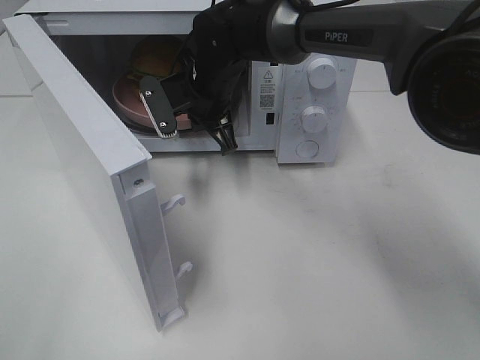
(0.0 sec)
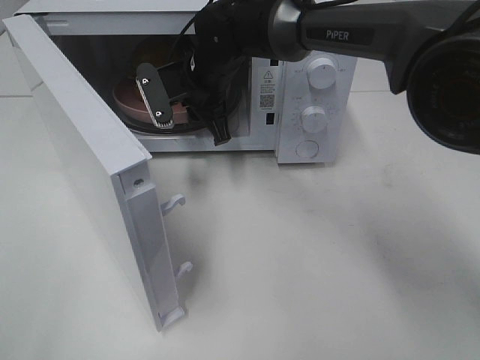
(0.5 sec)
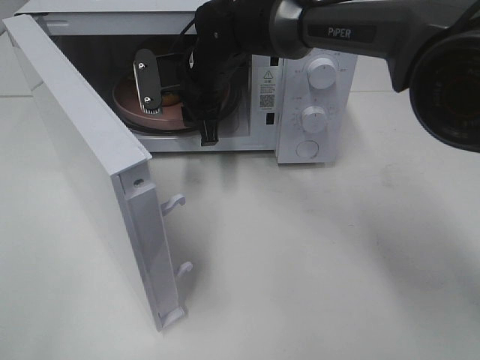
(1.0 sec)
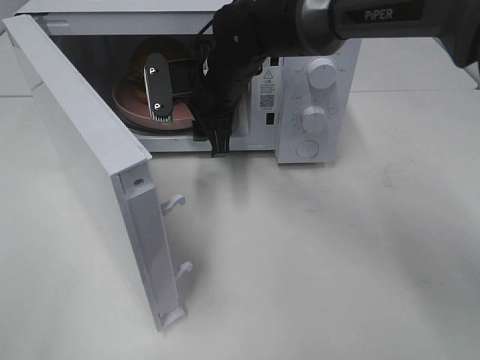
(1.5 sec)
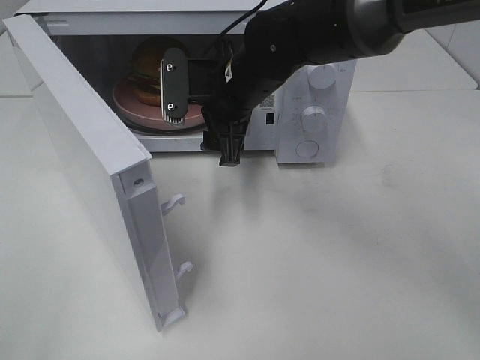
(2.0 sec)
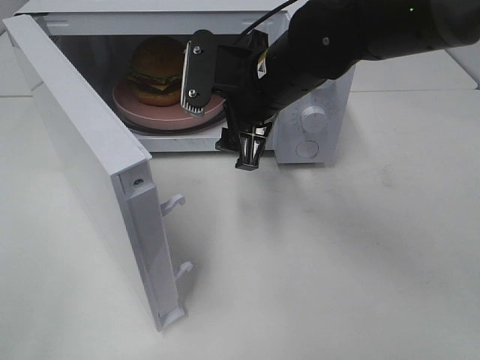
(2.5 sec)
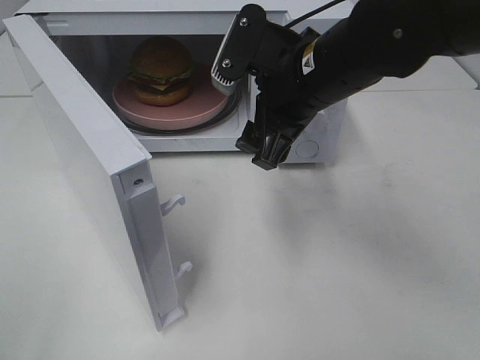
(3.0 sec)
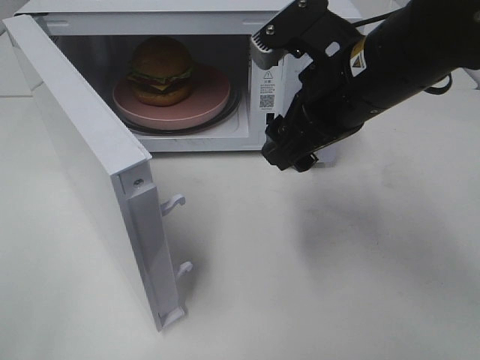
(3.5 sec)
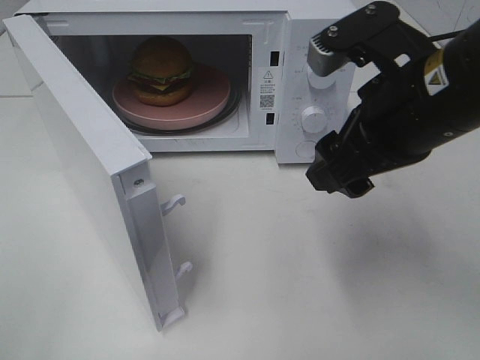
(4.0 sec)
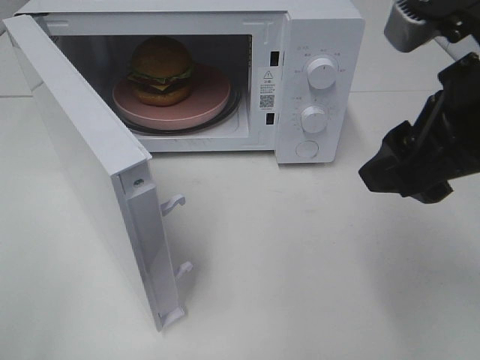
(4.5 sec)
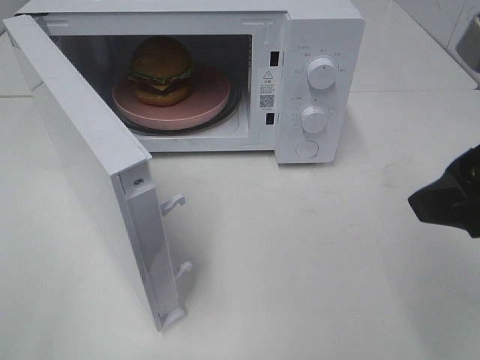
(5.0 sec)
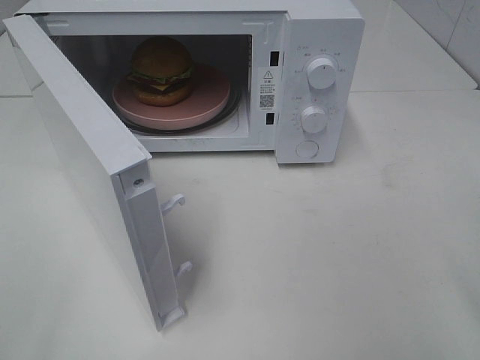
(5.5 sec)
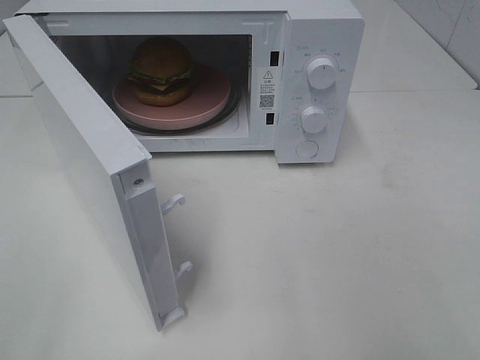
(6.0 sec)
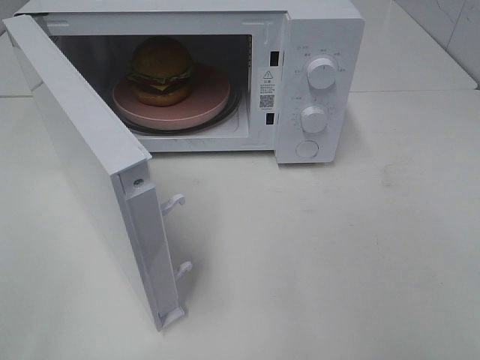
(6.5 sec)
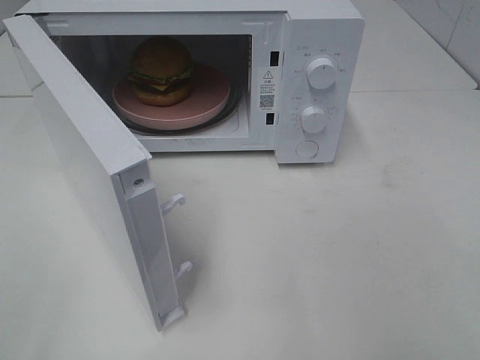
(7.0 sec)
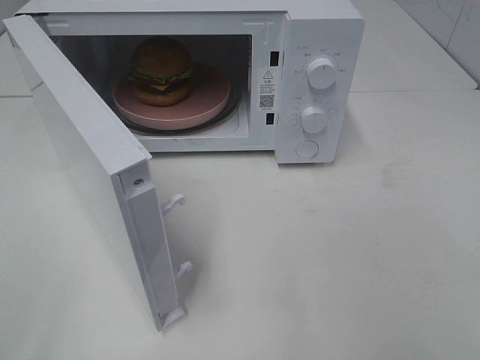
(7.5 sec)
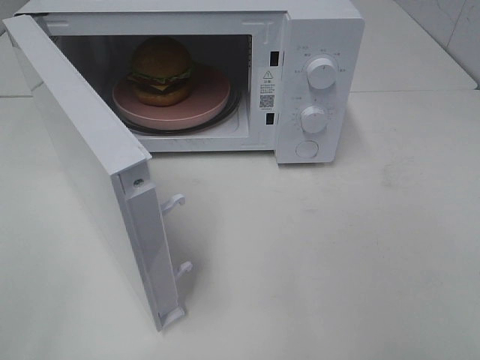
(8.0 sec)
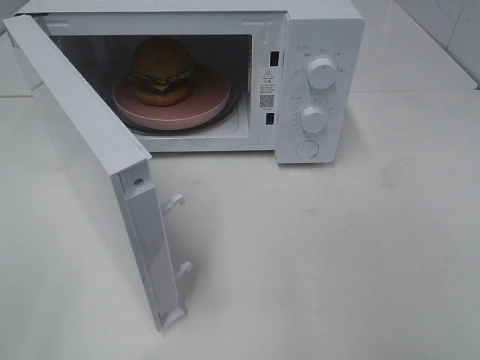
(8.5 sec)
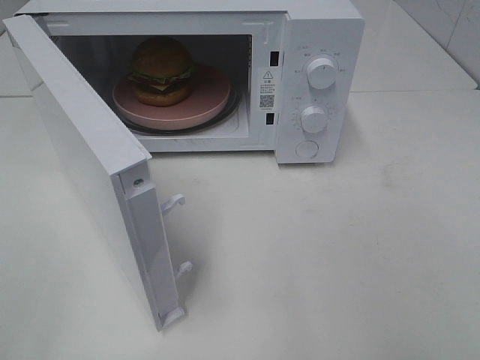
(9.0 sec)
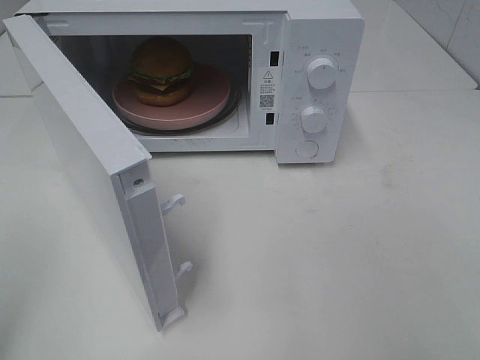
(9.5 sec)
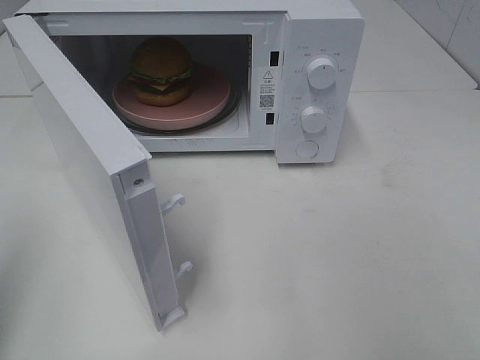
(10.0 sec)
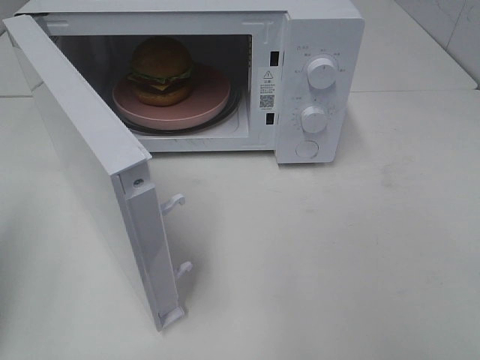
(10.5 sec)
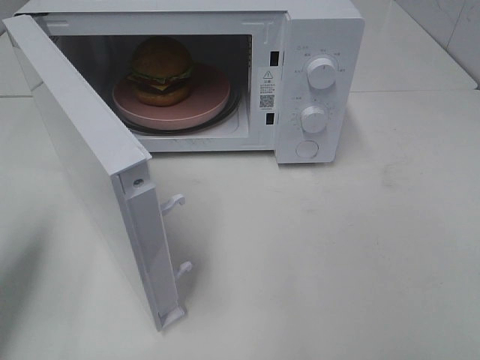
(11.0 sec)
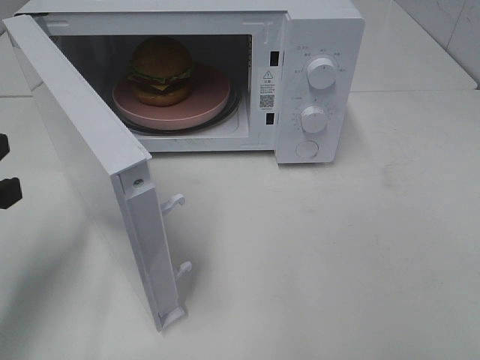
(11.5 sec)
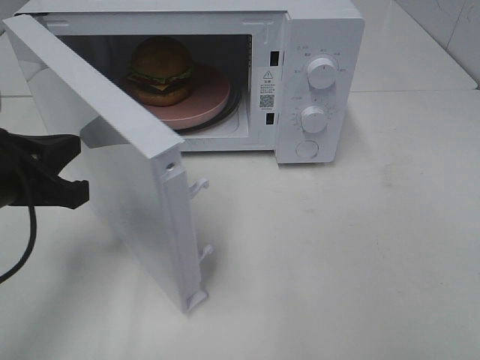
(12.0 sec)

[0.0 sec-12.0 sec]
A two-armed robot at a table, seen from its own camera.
Task of the whole recording: Heat the burger.
0.0 sec to 2.0 sec: The right gripper shifts about 5 cm backward, and opens its fingers.
2.0 sec to 4.0 sec: The right gripper shifts roughly 20 cm backward, to the right and upward.
4.0 sec to 6.0 sec: The right gripper shifts some 20 cm backward and to the right.
10.0 sec to 12.0 sec: The left gripper moves forward, downward and to the right, roughly 20 cm.

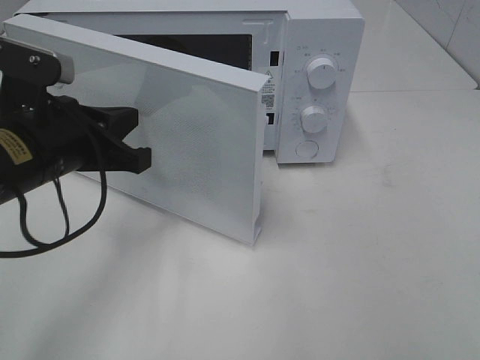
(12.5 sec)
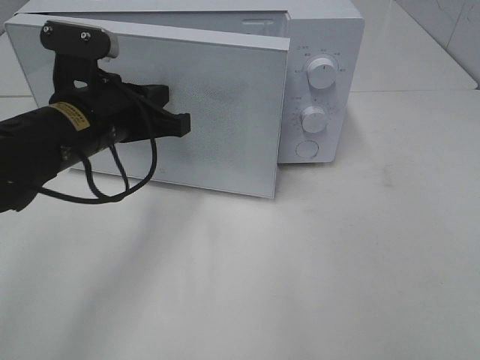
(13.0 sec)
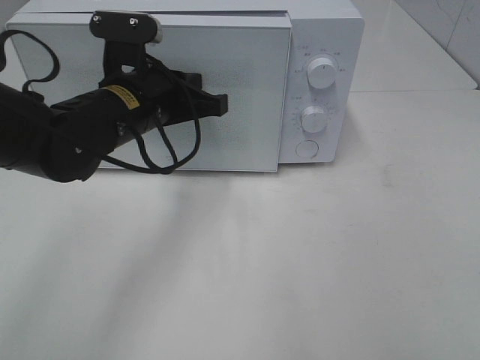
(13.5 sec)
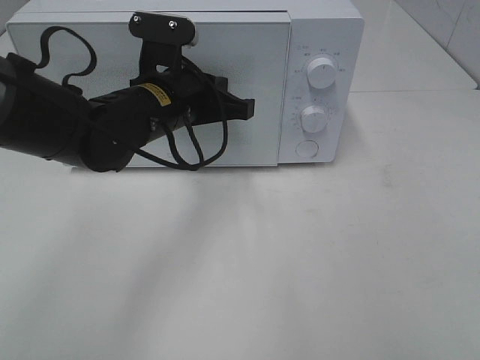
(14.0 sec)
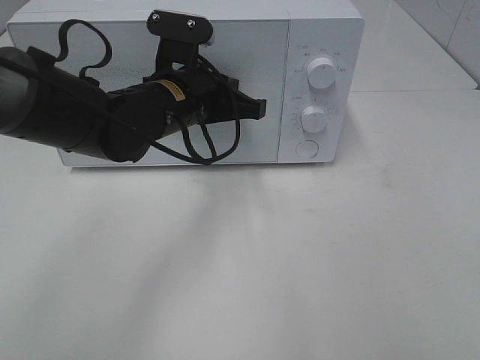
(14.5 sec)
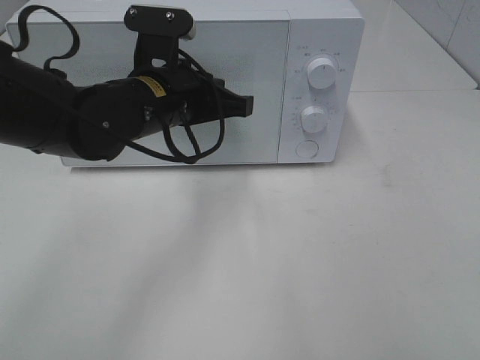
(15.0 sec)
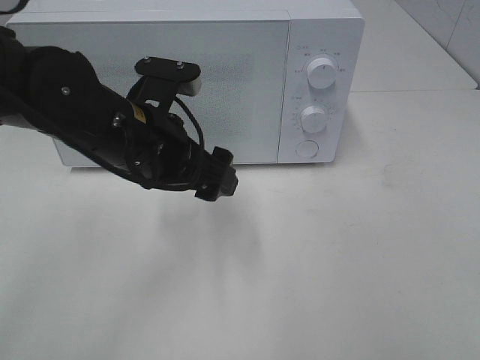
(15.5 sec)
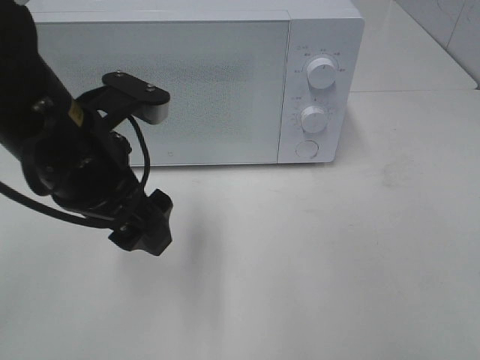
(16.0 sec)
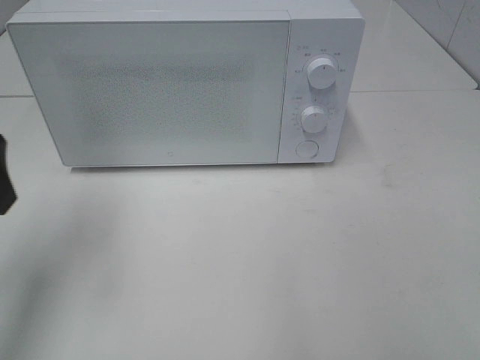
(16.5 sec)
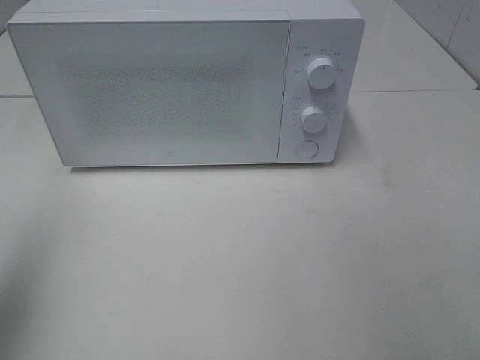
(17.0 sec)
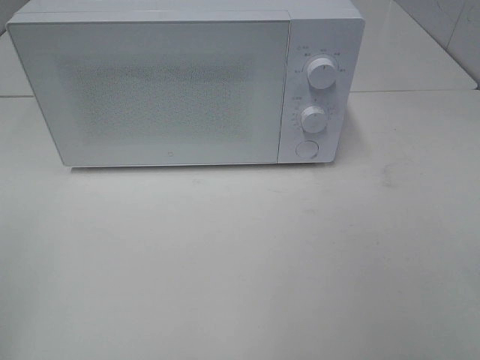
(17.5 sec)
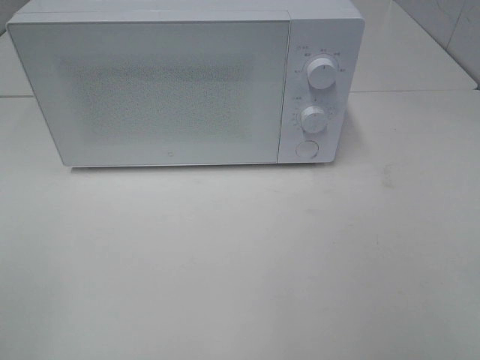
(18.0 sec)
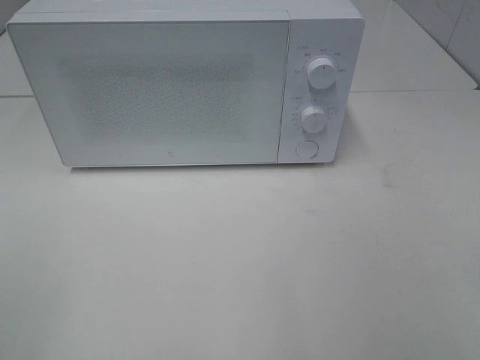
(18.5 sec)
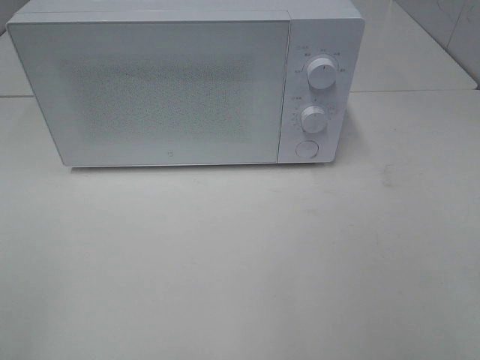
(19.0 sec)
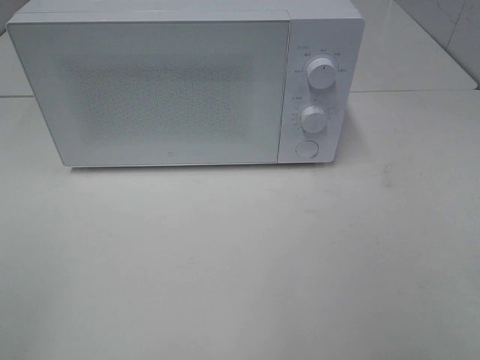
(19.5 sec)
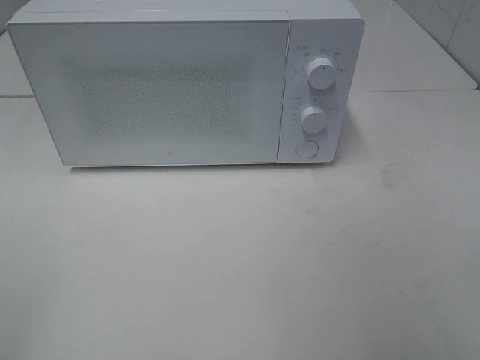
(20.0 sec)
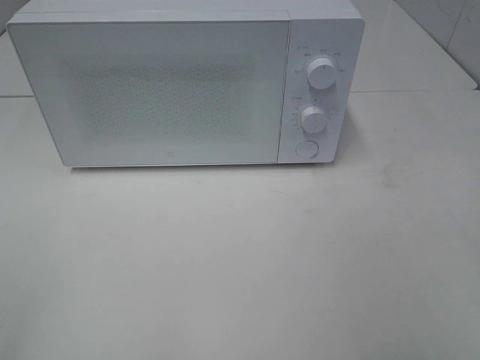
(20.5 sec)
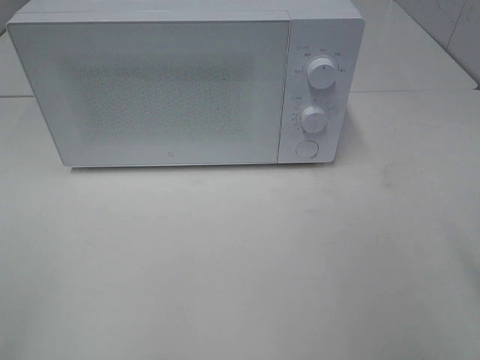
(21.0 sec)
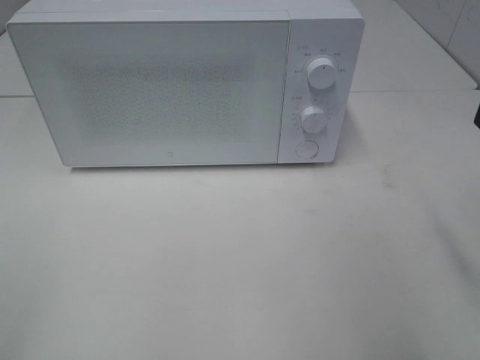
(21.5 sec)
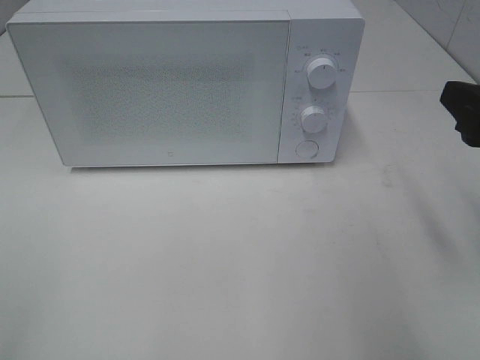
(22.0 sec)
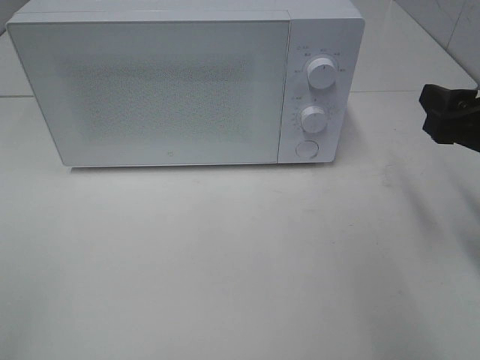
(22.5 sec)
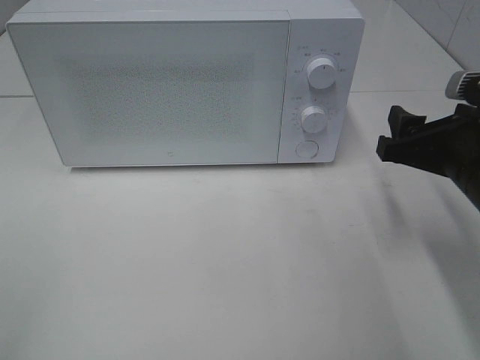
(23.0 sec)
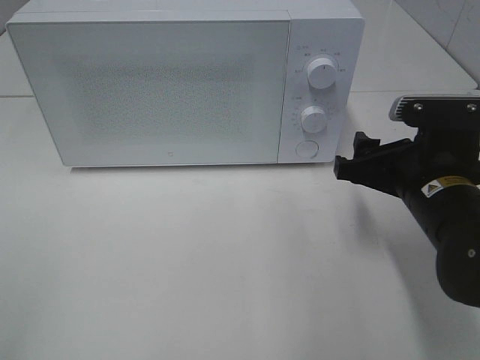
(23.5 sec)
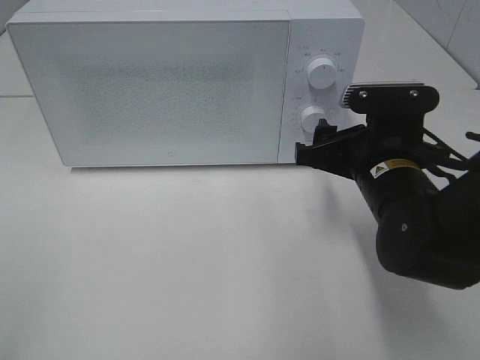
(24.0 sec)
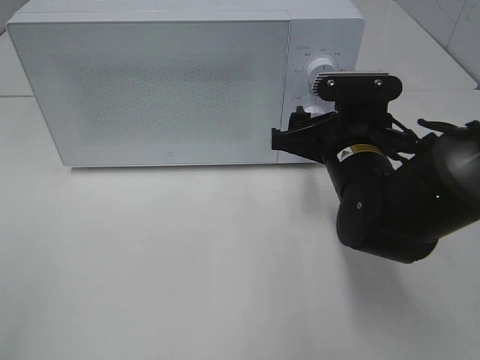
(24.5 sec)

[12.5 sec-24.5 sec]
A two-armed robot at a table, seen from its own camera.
Task of the whole recording: Heat the burger.
Step, 12.5 sec to 15.0 sec: Left hand: close the microwave door.
12.5 sec to 14.5 sec: The left gripper moves to the right and forward, approximately 15 cm.
14.5 sec to 16.5 sec: The left gripper shifts roughly 25 cm to the left, backward and upward, and opens its fingers.
16.5 sec to 18.5 sec: The left gripper heads backward, covering about 25 cm.
20.5 sec to 22.5 sec: The right gripper travels forward and downward by approximately 20 cm.
22.5 sec to 24.5 sec: The right gripper travels to the left, downward and forward by some 15 cm.

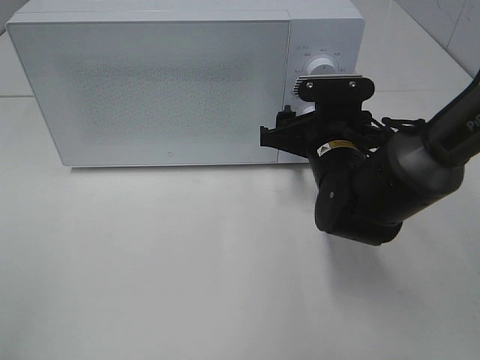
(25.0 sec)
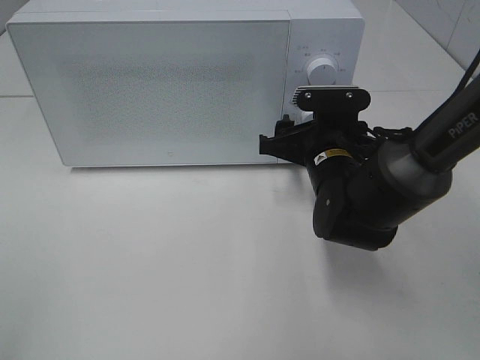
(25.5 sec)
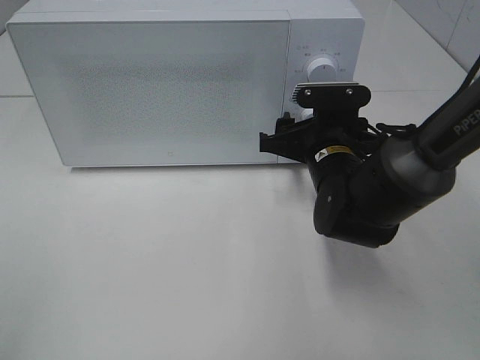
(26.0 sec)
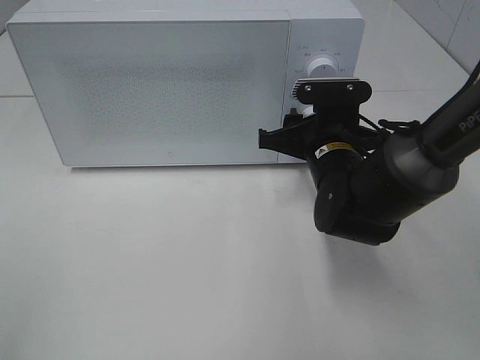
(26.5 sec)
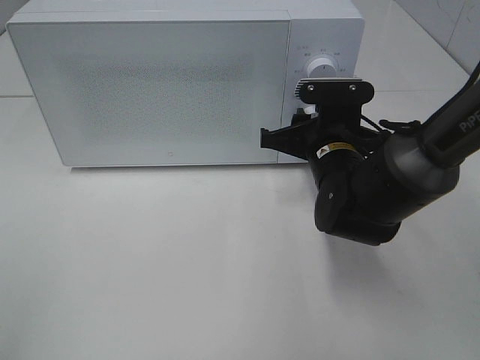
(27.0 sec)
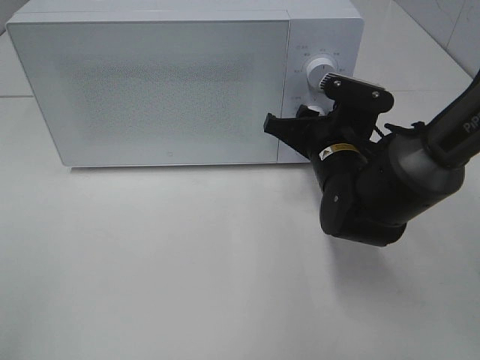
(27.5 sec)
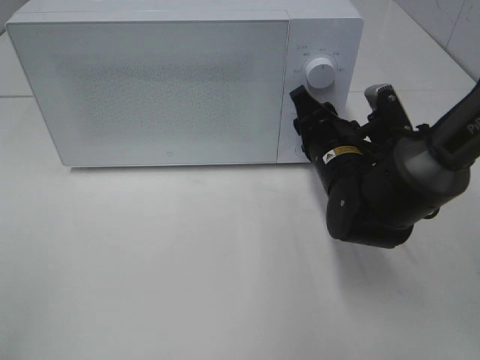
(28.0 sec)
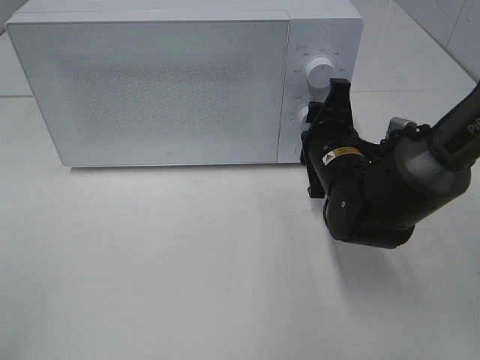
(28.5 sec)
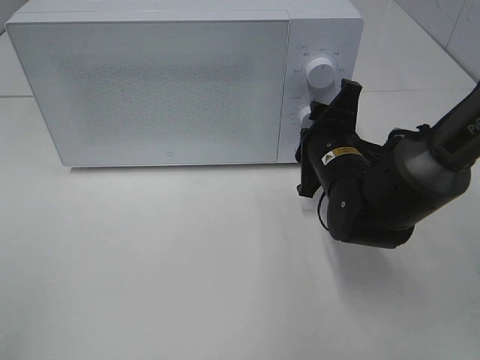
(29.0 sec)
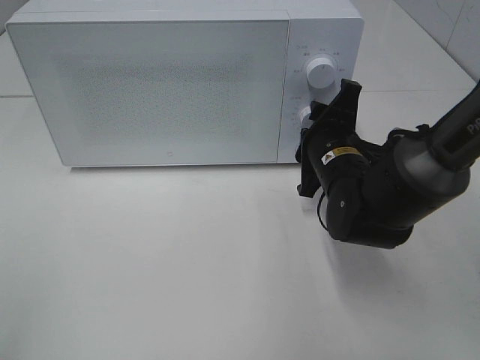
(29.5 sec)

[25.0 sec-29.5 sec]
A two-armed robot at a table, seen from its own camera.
Task of the whole recording: Heat the burger.
25.0 sec to 27.0 sec: The right gripper closes its fingers.
